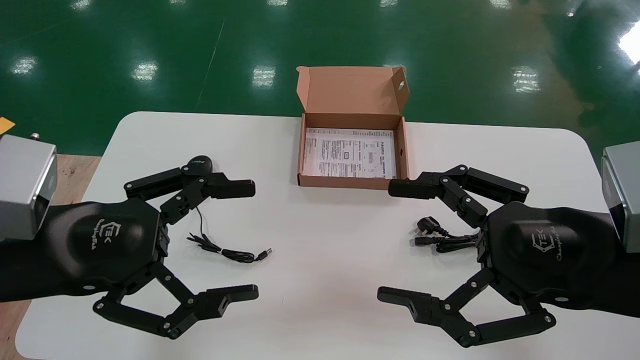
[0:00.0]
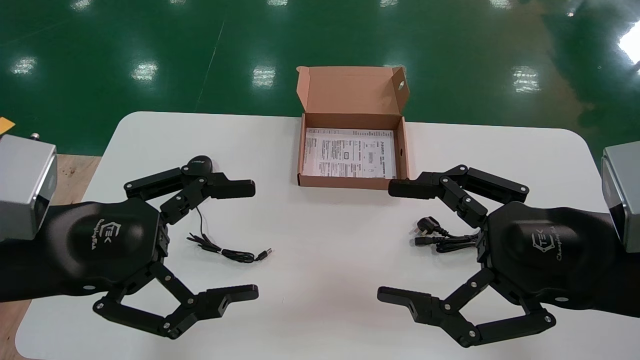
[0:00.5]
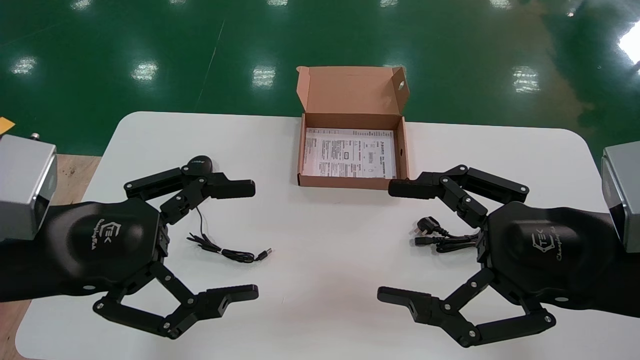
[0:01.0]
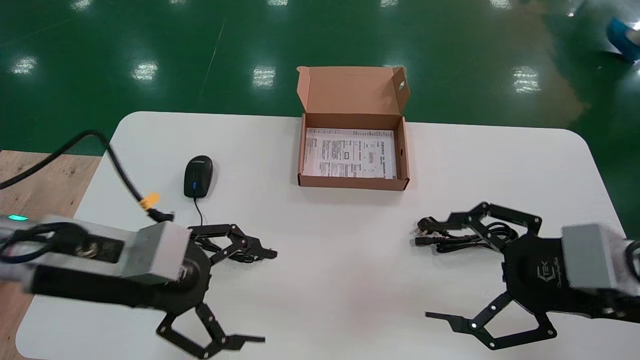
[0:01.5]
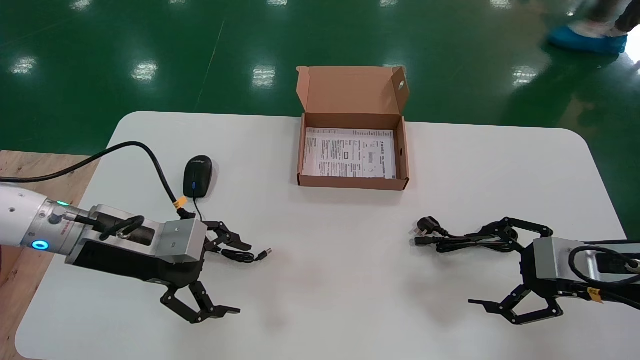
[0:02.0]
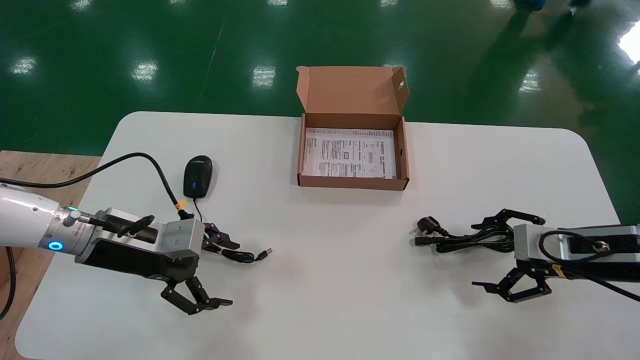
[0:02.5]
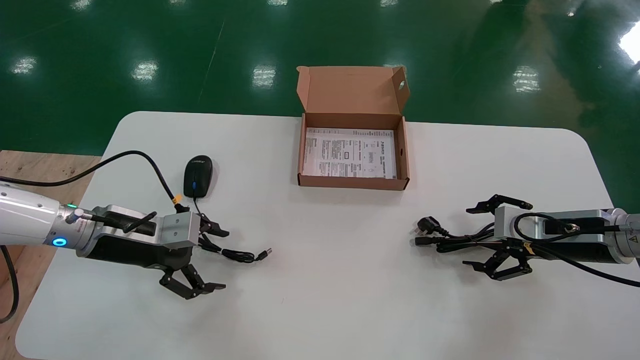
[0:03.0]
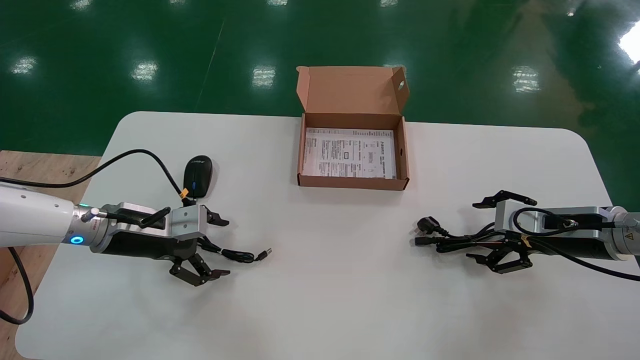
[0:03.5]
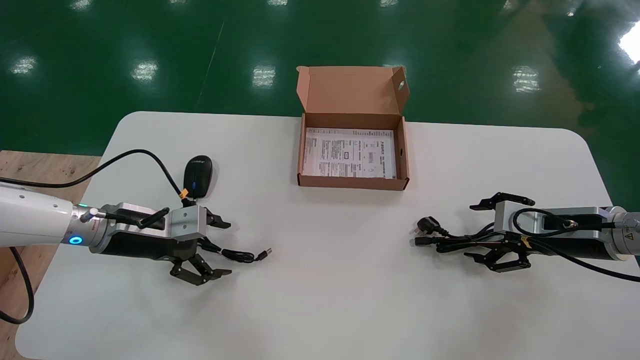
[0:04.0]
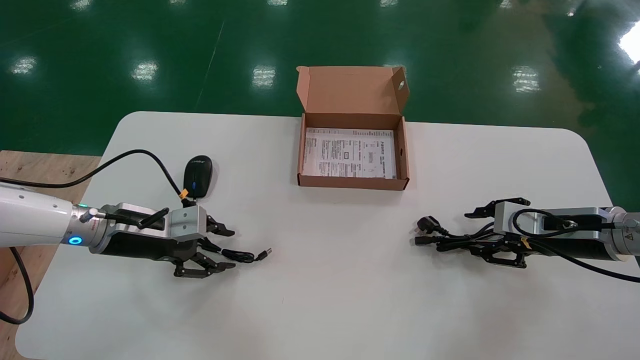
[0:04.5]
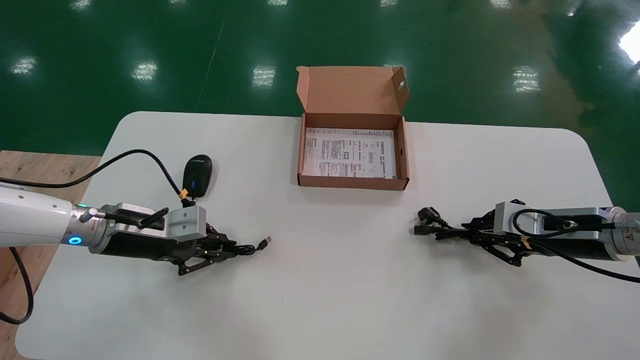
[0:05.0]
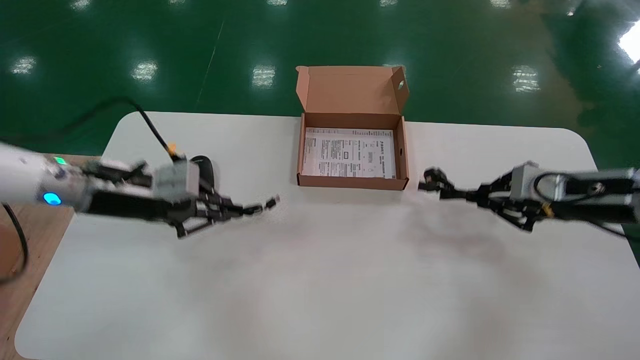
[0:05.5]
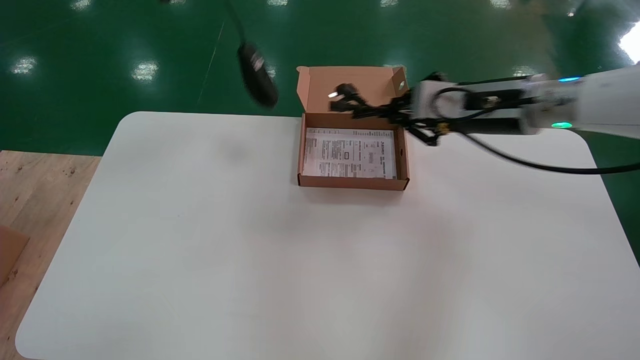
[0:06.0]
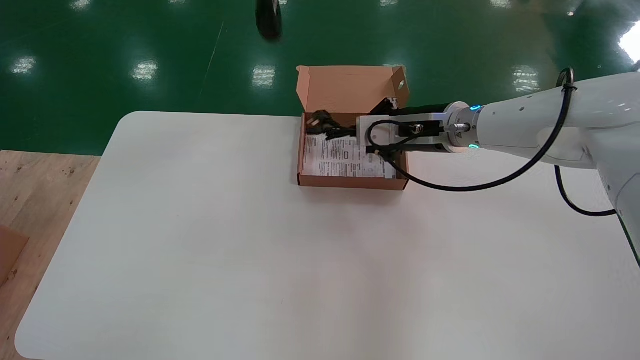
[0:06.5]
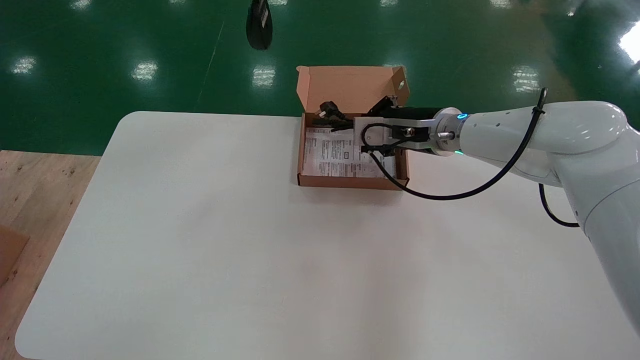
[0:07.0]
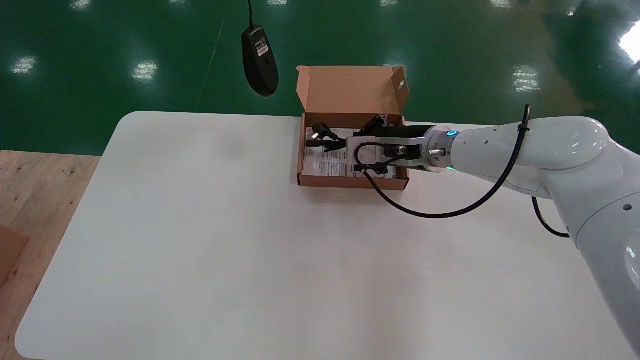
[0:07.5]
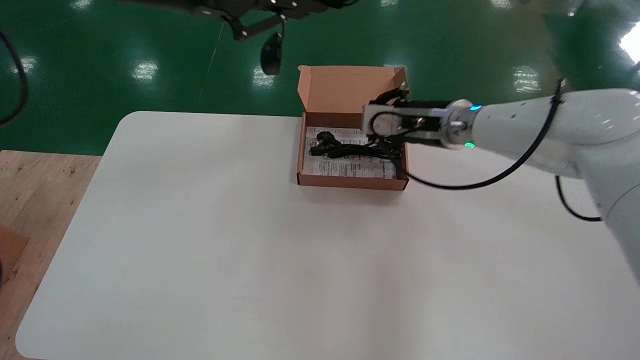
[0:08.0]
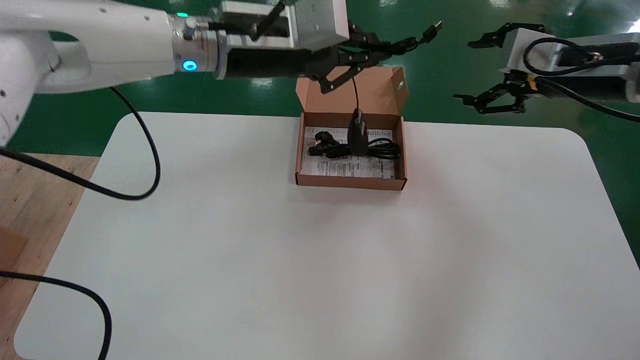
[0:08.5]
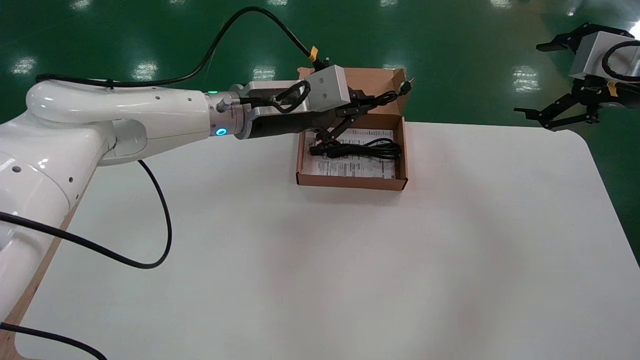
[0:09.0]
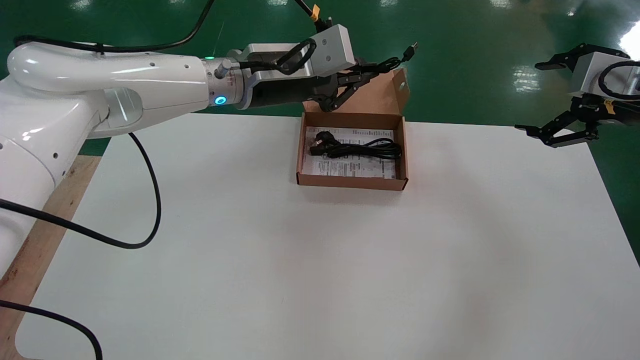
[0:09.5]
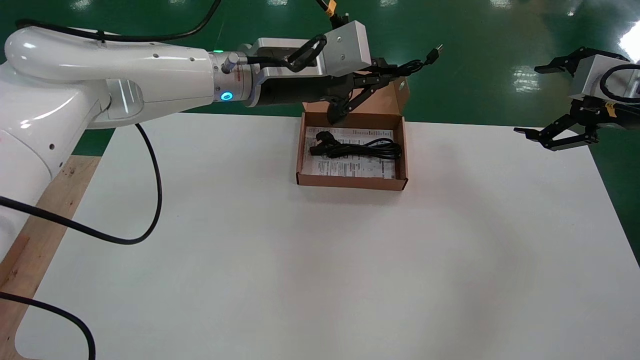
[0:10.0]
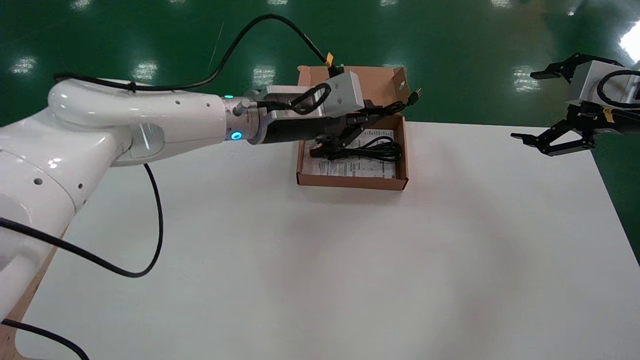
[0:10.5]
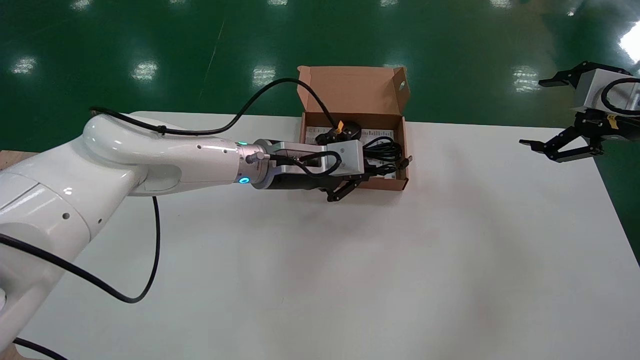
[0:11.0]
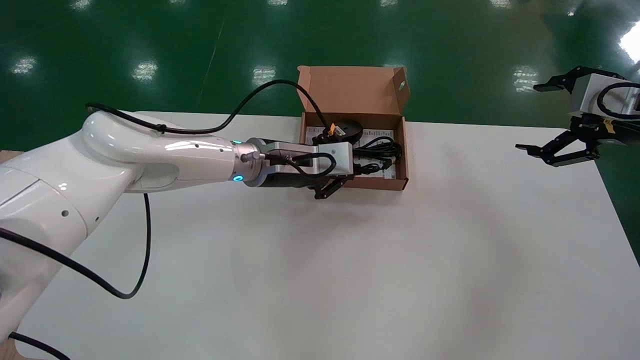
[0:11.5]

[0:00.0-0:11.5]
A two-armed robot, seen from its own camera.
Step, 0:01.5 to 0:05.0: Simultaneously pick up the mouse and power cord from the accessory packaging area.
0:00.0 to 0:02.0: The right gripper travels to the right, forward and downward by roughly 15 cm. Meanwhile the left gripper goes about 15 cm forward and downward.
0:02.0 to 0:04.0: The grippers both shift forward by approximately 10 cm.
0:04.0 to 0:06.0: The right gripper heads upward and to the left, covering about 20 cm, and closes up. The left gripper shifts approximately 35 cm upward, and closes its fingers.
0:06.0 to 0:07.5: The left gripper shifts by roughly 5 cm. Meanwhile the right gripper is displaced to the left, forward and downward by some 15 cm.
0:07.5 to 0:09.5: The right gripper moves to the right and backward, about 30 cm, and opens, while the left gripper travels downward, forward and to the right by approximately 25 cm.
0:09.5 to 0:11.5: The left gripper shifts some 10 cm downward.

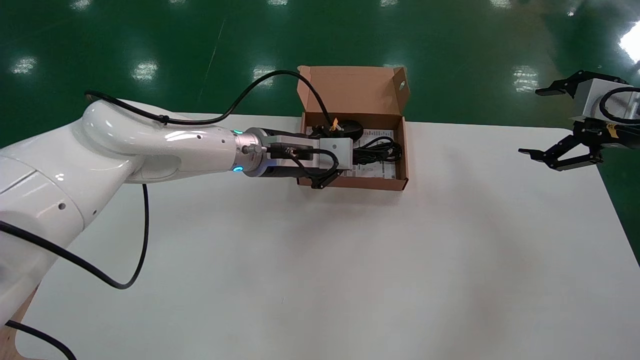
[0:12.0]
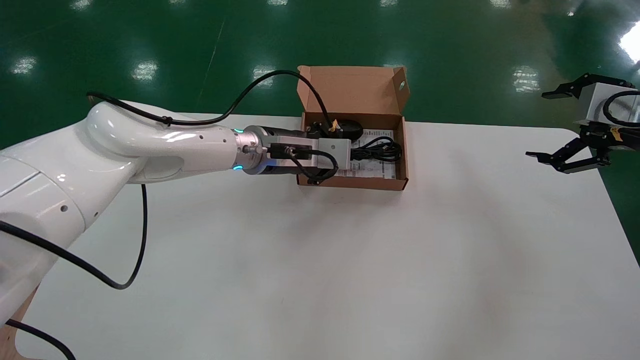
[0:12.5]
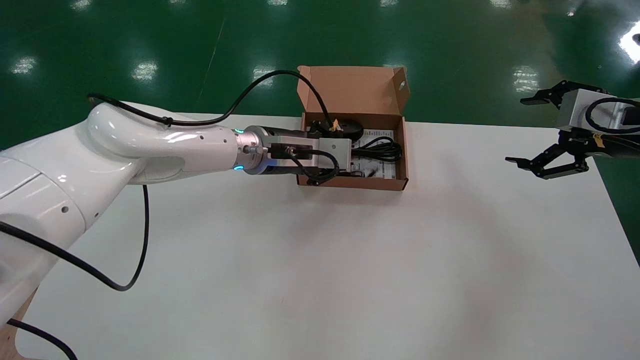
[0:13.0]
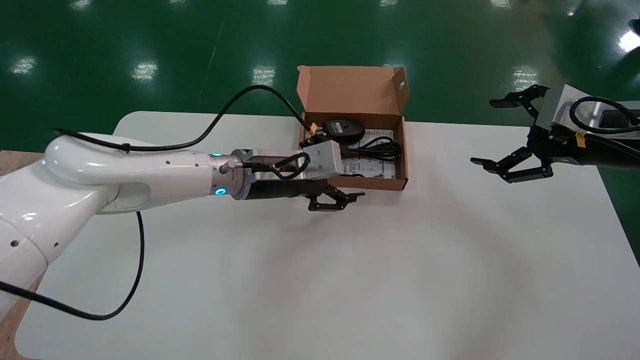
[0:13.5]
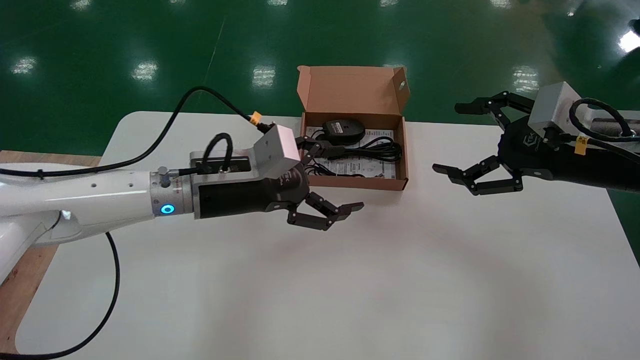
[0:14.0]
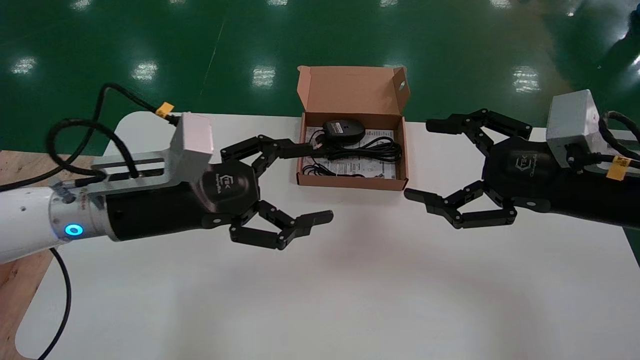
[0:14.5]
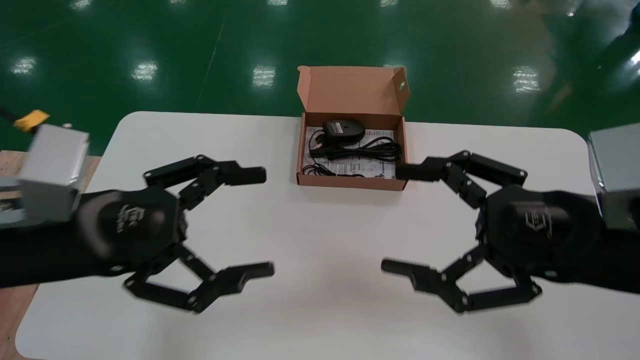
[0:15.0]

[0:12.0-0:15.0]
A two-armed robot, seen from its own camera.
0:12.0 to 0:13.5: The left gripper opens; the right gripper shifts by some 5 cm.
0:13.5 to 0:15.0: The two grippers go roughly 20 cm backward and to the left. The left gripper opens its fingers.
